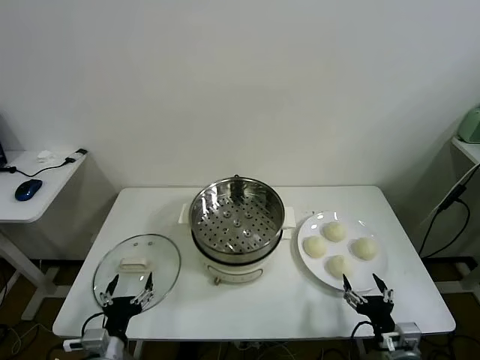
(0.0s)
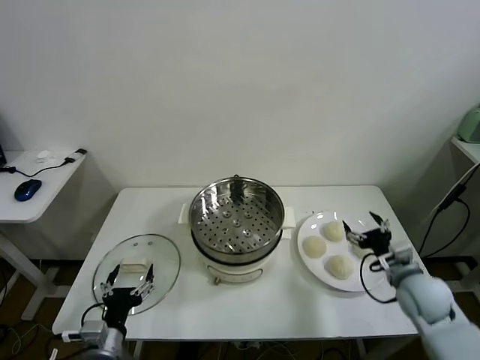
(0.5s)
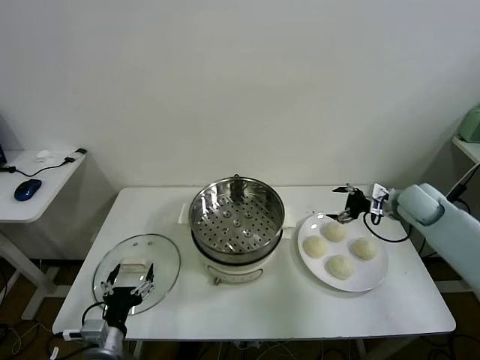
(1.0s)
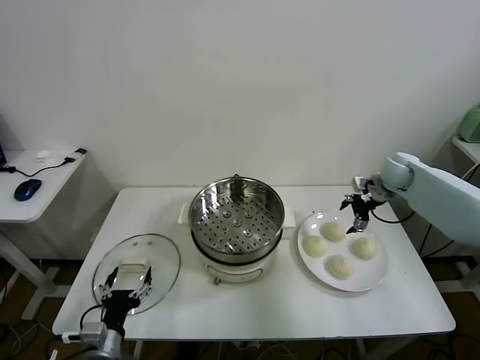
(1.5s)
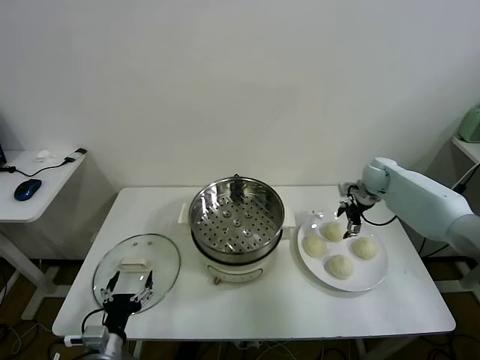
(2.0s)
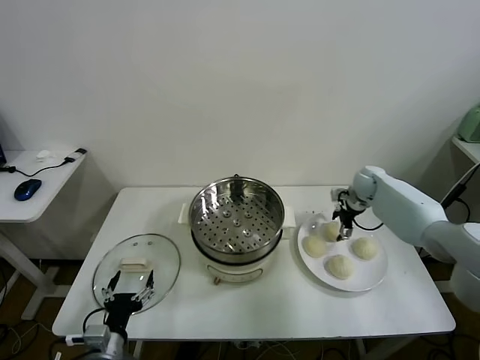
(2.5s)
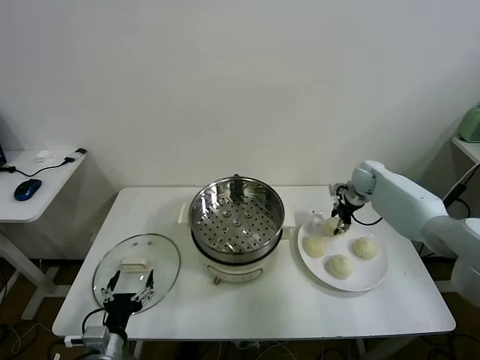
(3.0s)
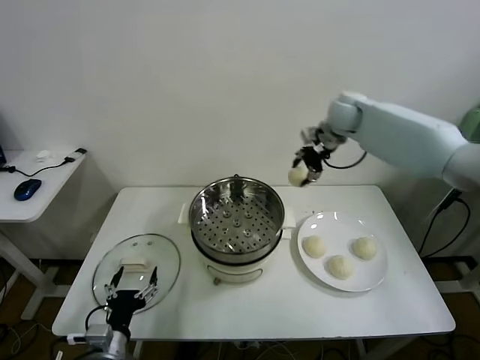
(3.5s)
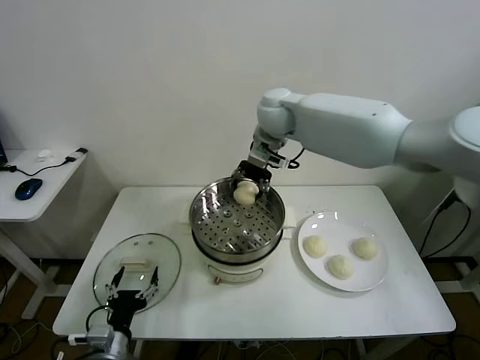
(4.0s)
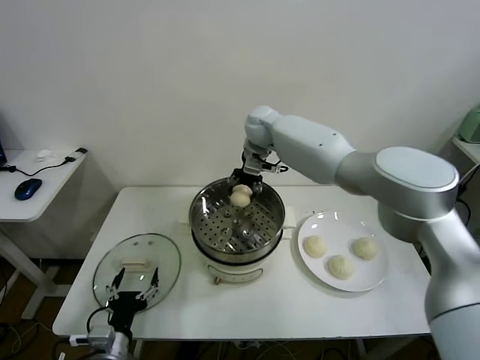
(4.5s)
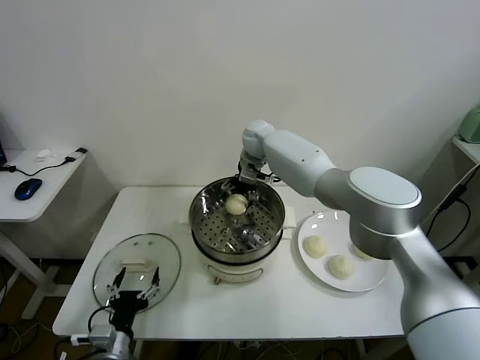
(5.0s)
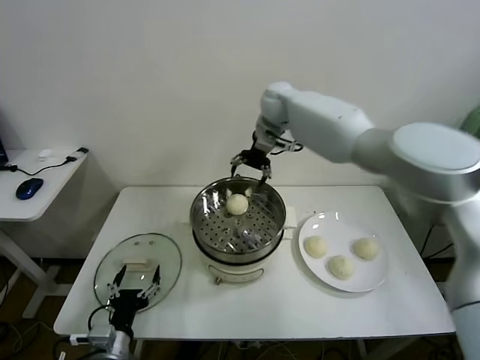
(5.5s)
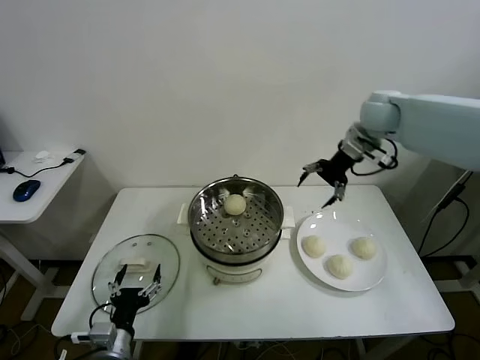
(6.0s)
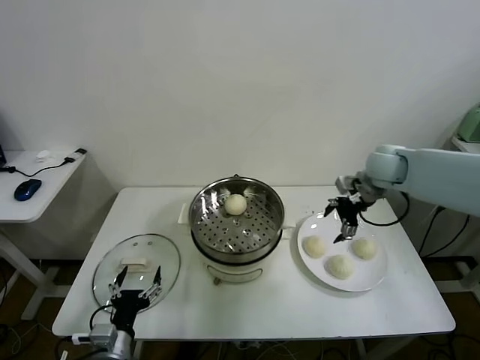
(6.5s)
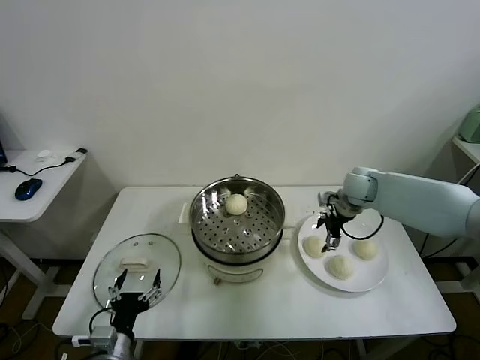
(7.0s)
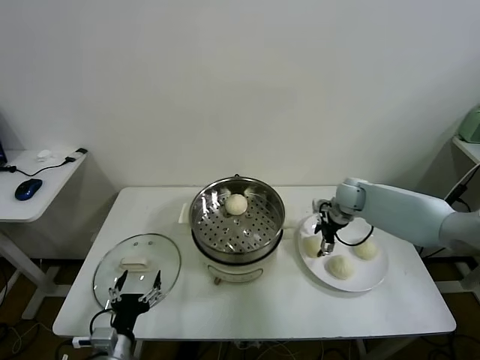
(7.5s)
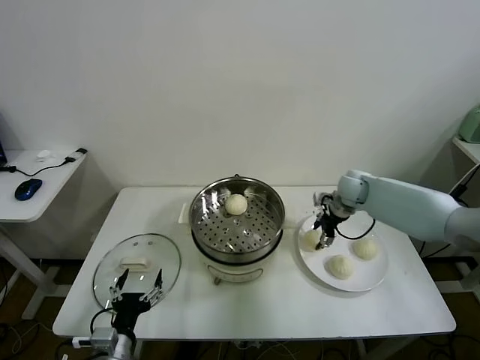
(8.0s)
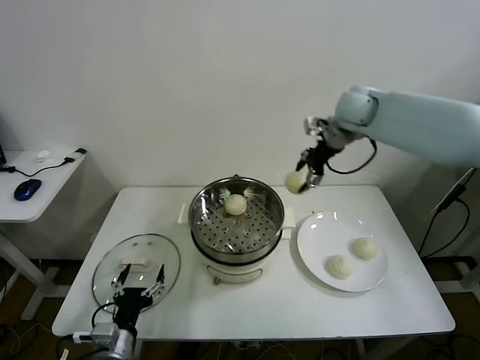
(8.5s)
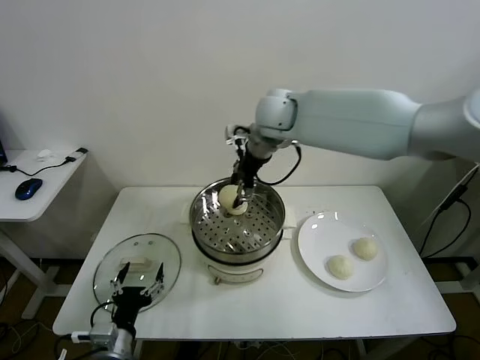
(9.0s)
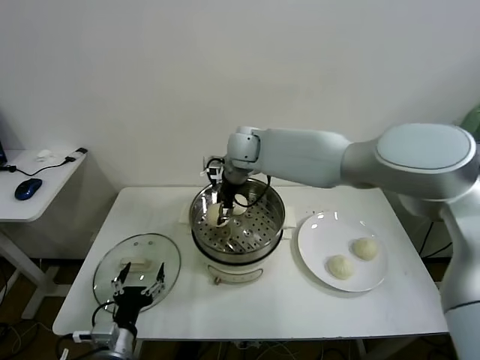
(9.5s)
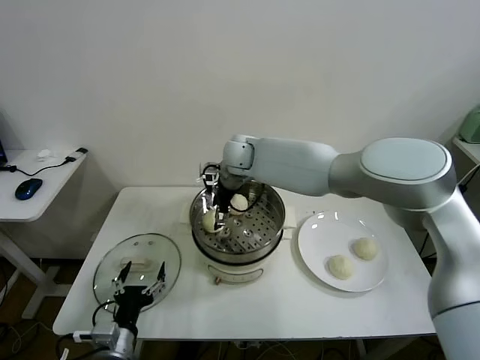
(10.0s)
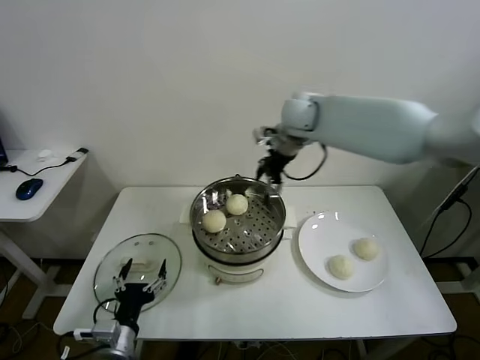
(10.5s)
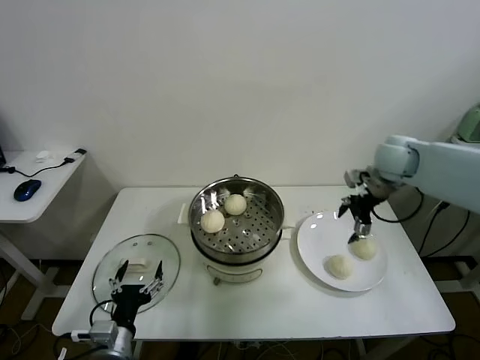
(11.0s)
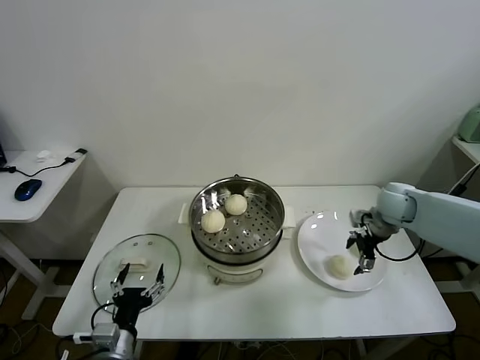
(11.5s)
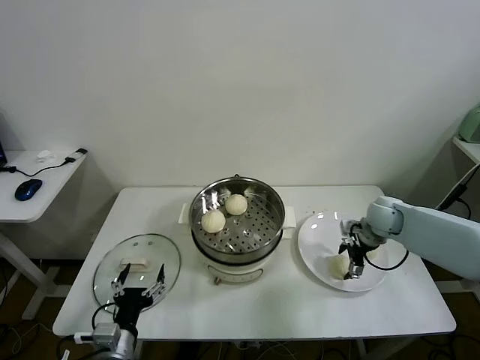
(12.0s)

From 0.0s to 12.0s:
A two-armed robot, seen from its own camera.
Task of the whole recording: take steamed baozi put them in steamer.
Step, from 0.0s to 2.5s: Grasp the baozi in the plate with right gripper.
Step, from 3.0s to 5.0s: Place the baozi on the steamer with right gripper.
Step, from 5.5s to 7.5s: Grasp the baozi in the plate with right gripper.
Step, from 8.0s to 10.0s: Place the baozi on the steamer with right gripper.
From 2.0s to 4.0s: The right gripper moves to the left and upward, some 35 cm, and closes up.
From 4.0s to 6.0s: The right gripper shifts some 25 cm to the right, and opens.
From 6.0s to 8.0s: The right gripper goes roughly 15 cm downward, and closes up.
From 8.0s to 10.0s: The right gripper shifts roughly 30 cm to the left, and opens its fingers.
From 10.0s to 12.0s: The right gripper moves to the right and downward, approximately 40 cm.

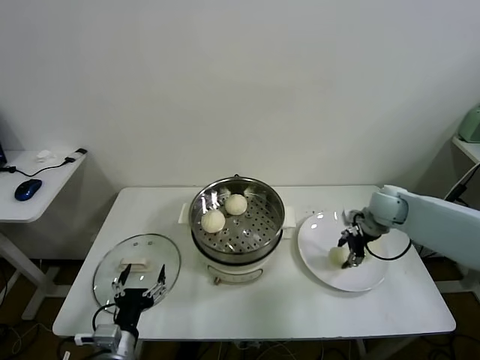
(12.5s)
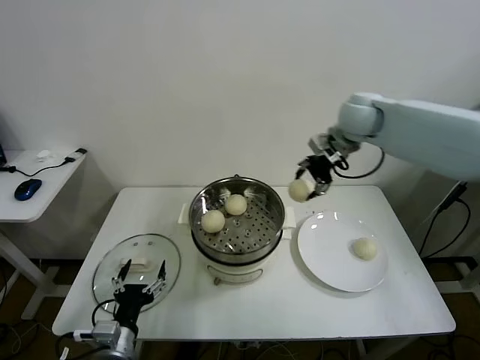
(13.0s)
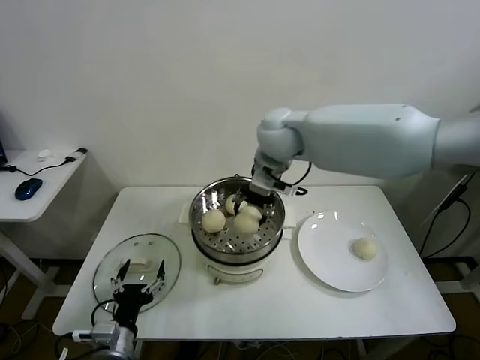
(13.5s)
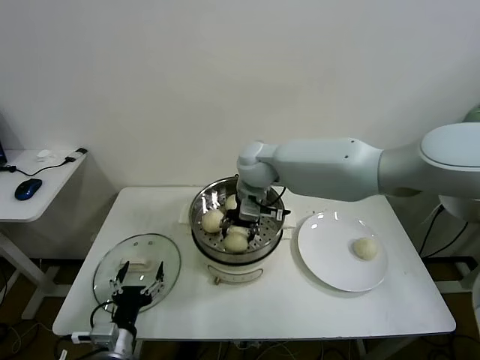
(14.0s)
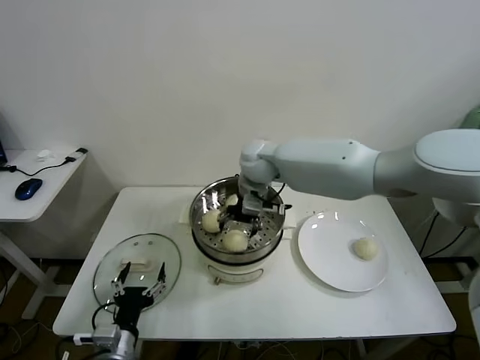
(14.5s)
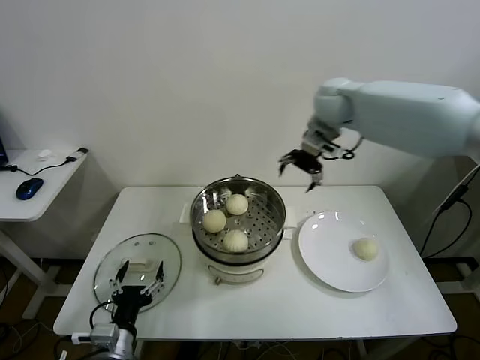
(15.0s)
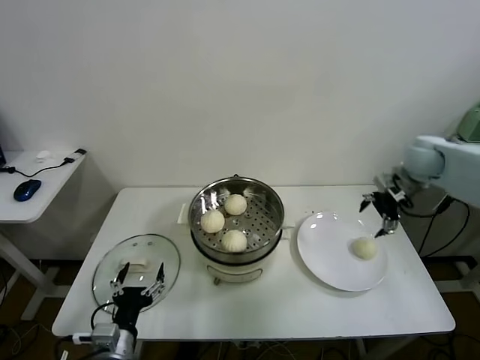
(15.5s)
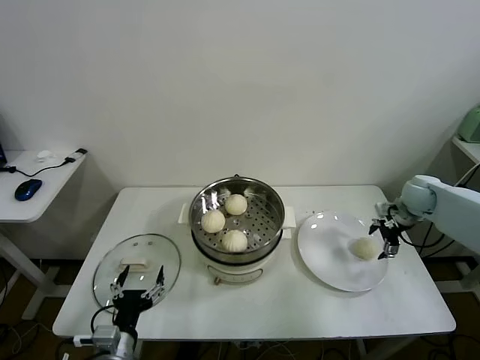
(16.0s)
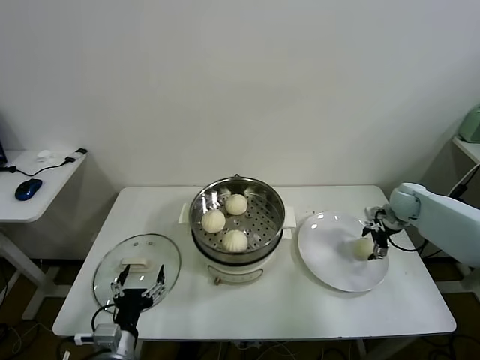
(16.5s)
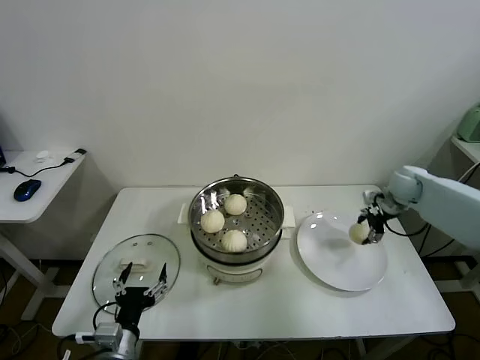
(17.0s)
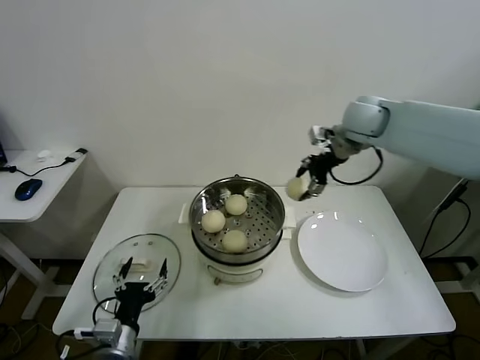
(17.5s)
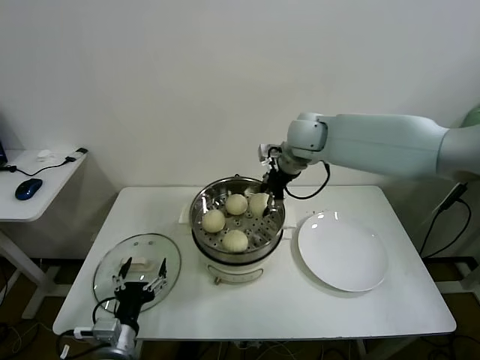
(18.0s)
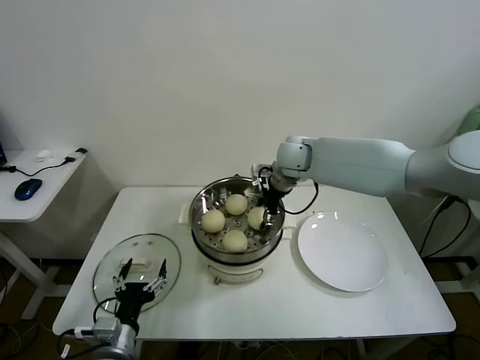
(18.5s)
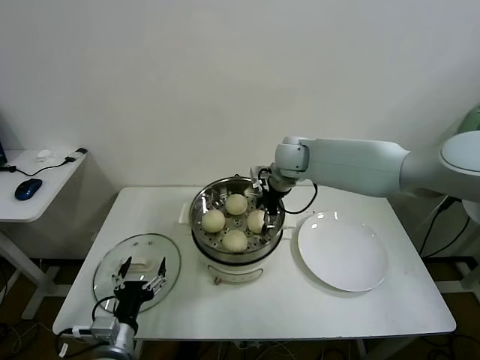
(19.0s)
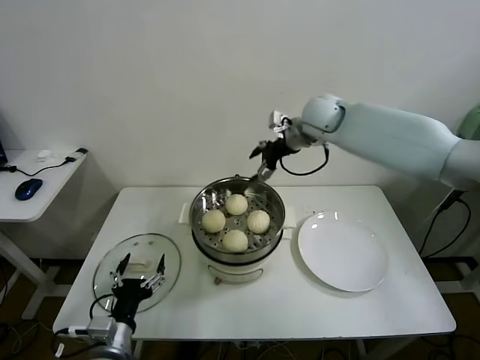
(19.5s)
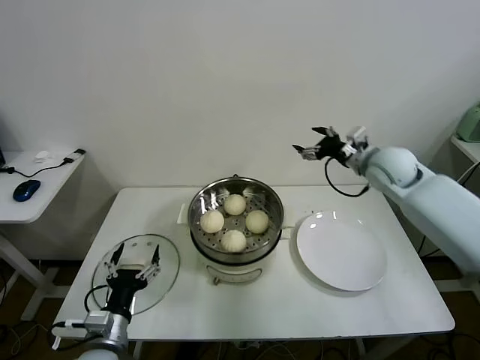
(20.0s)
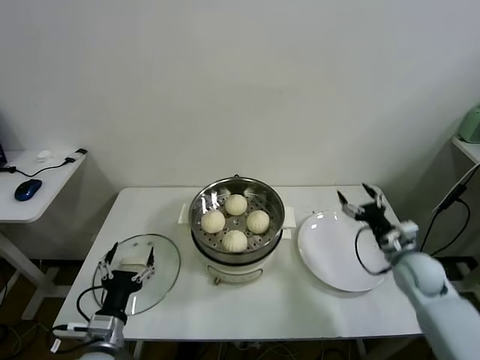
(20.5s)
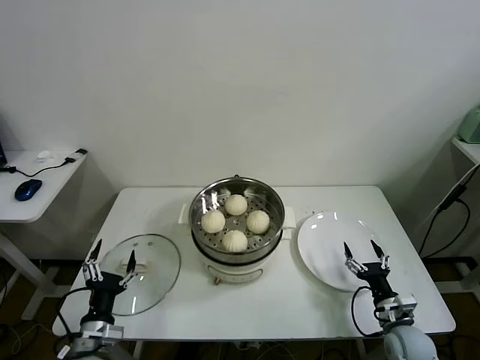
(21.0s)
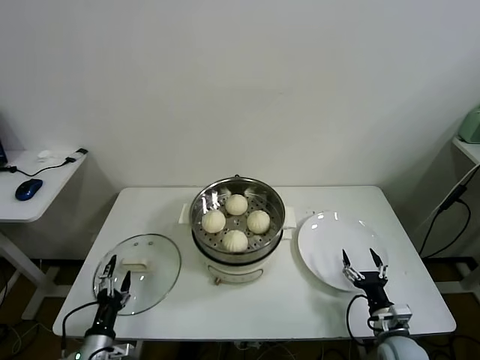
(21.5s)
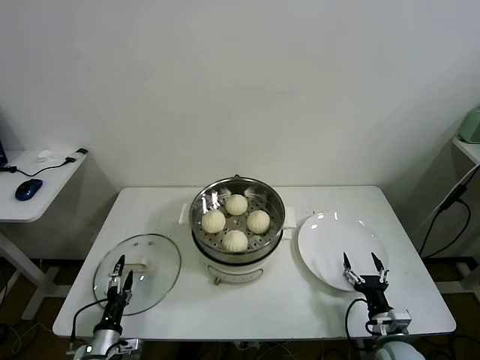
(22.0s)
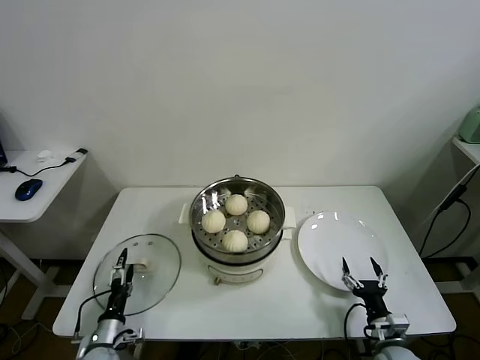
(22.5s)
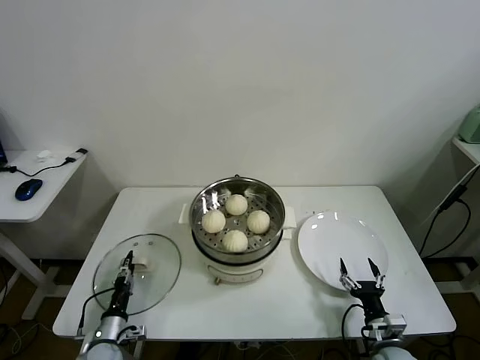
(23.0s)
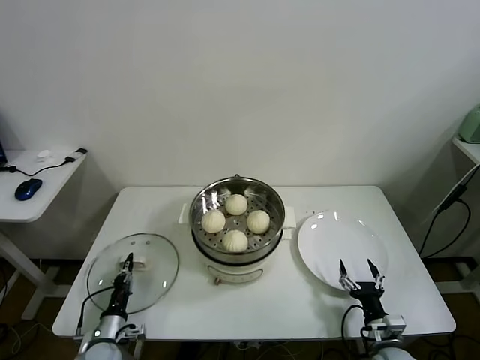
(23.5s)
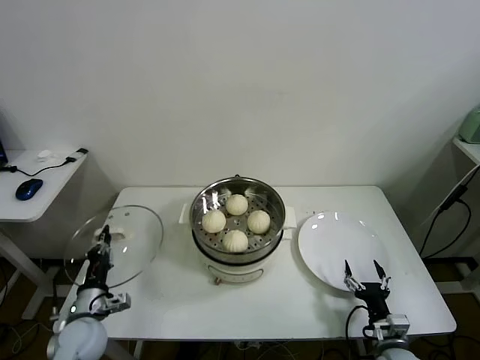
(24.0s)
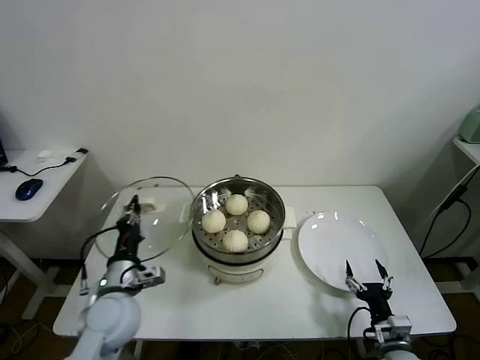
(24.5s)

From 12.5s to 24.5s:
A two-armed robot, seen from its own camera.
Task of the whole recording: take steamed baozi put them in steamer.
Step, from 12.5s to 14.0s: Place the baozi on the steamer with right gripper.
Step, from 15.0s to 16.5s: Grasp the baozi in the plate with right gripper.
Step, from 17.0s to 19.0s: Place the baozi on the steamer with right gripper.
Step, from 19.5s to 23.0s: Grasp the pot lid with left gripper.
From 12.5s to 14.5s: The right gripper travels to the left by approximately 30 cm, and opens its fingers.
From 14.5s to 16.5s: The right gripper goes roughly 40 cm to the right.
From 16.5s to 18.5s: The right gripper heads to the left and upward, covering about 35 cm, and closes its fingers.
From 18.5s to 20.5s: The right gripper moves to the right, backward and downward, approximately 40 cm, and opens up.
From 20.5s to 22.5s: The left gripper is displaced downward and to the left by about 15 cm. The right gripper travels backward and downward by approximately 20 cm.
From 22.5s to 24.5s: The left gripper heads upward, covering approximately 20 cm, and closes its fingers.

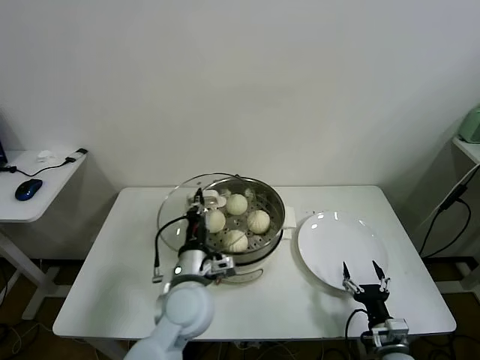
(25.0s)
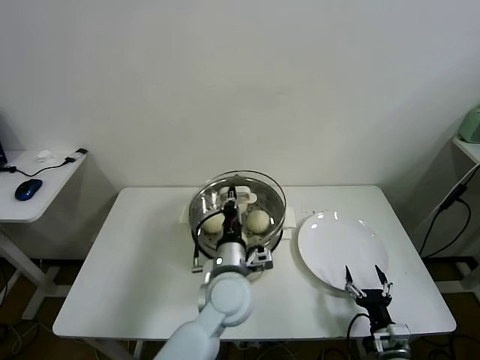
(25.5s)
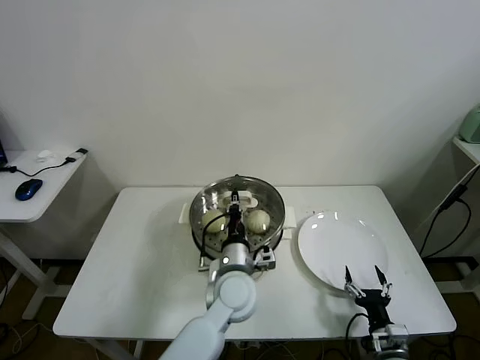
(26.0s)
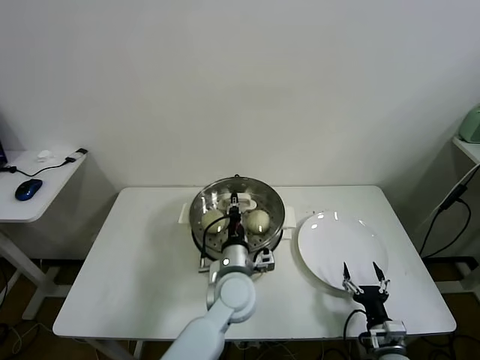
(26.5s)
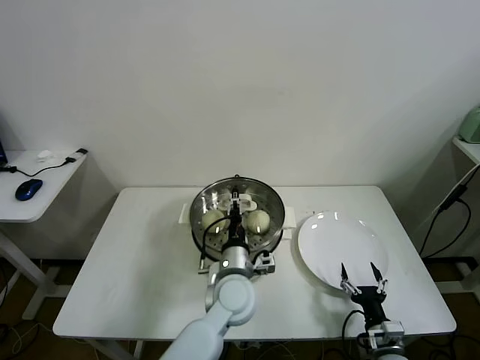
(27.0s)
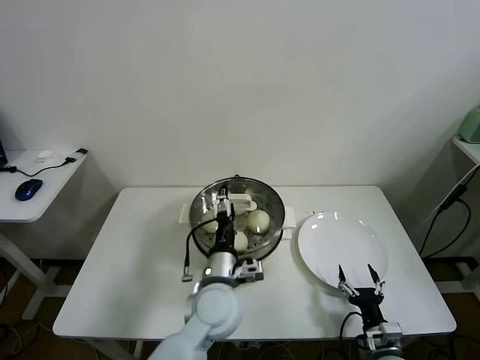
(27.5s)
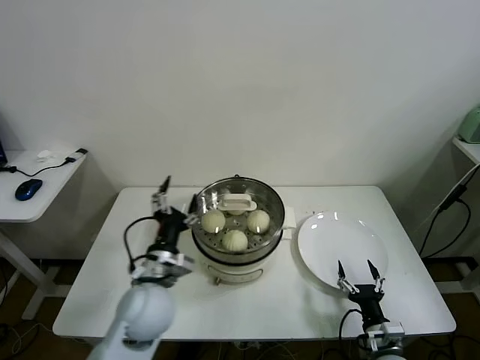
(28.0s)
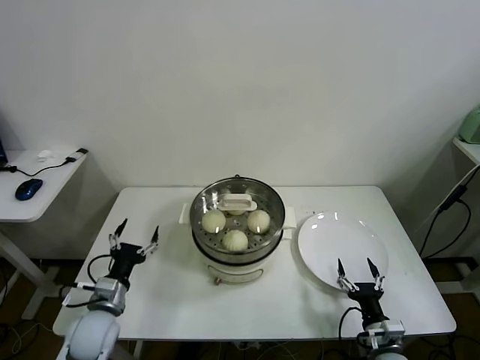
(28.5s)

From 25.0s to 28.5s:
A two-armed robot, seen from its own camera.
Task of the whole recording: take steamed baozi put them in steamer.
Step, from 25.0s to 27.0s: Place the pot lid on the steamer with left gripper.
From 25.0s to 27.0s: The left gripper shifts approximately 10 cm to the right, and opens up.
From 27.0s to 28.5s: The left gripper heads to the left, covering approximately 30 cm, and opens.
